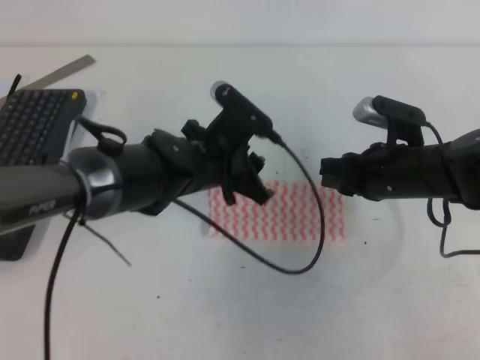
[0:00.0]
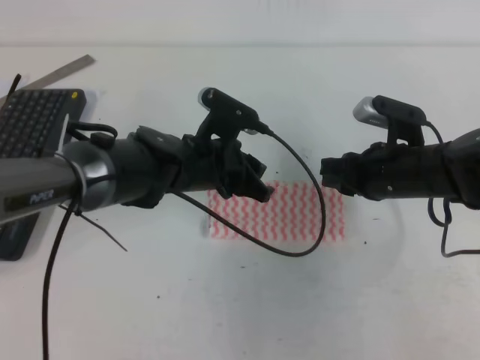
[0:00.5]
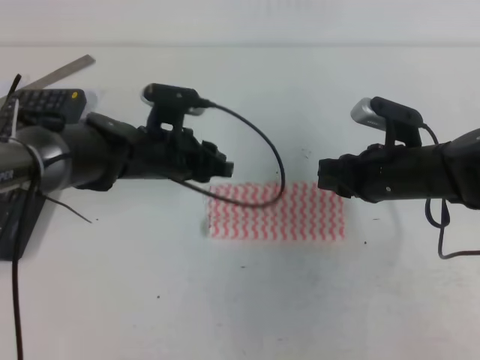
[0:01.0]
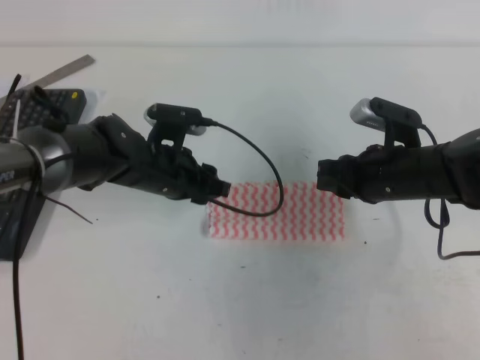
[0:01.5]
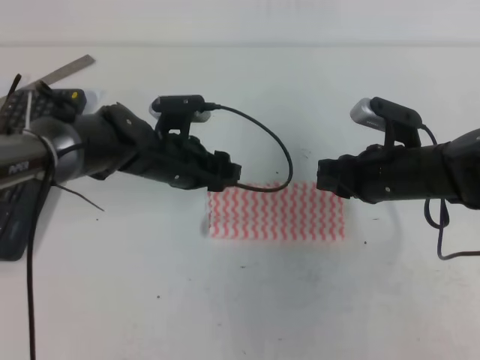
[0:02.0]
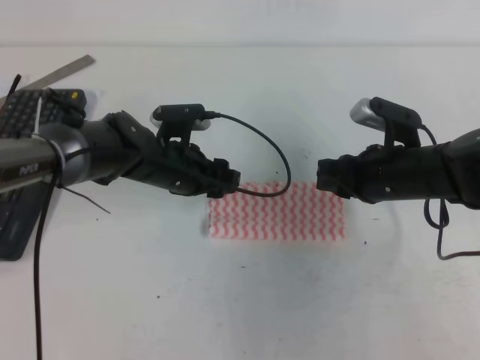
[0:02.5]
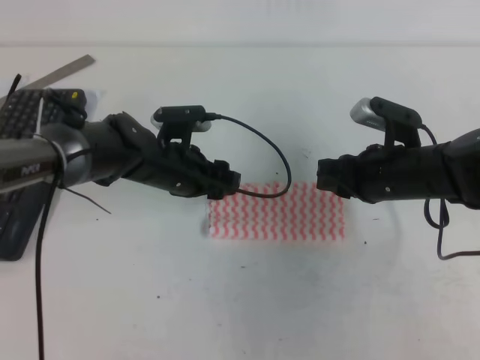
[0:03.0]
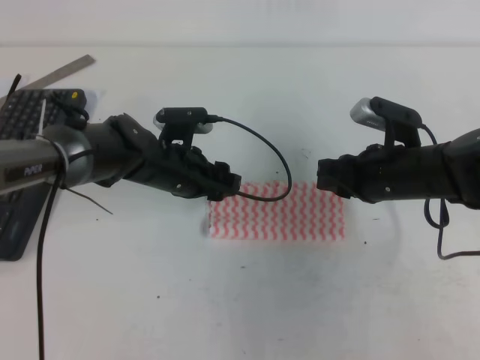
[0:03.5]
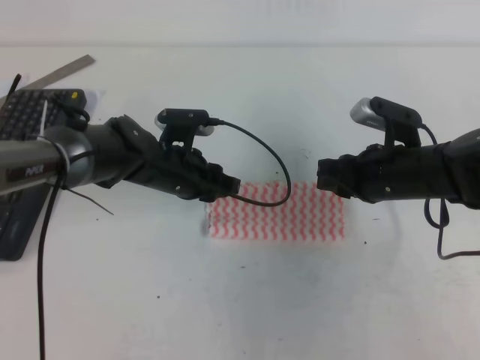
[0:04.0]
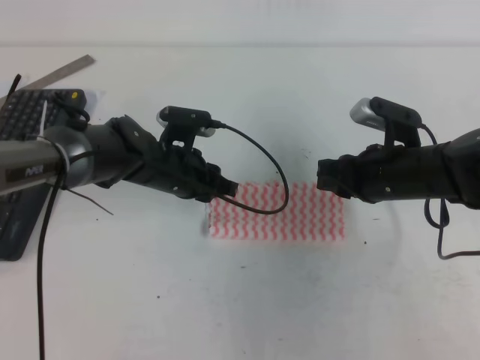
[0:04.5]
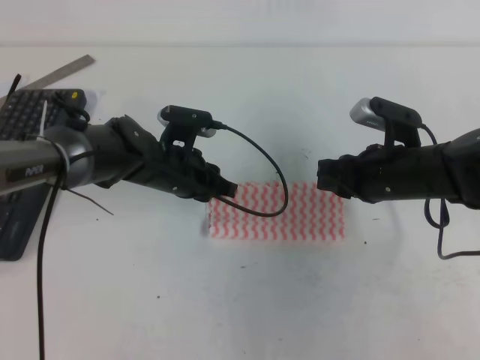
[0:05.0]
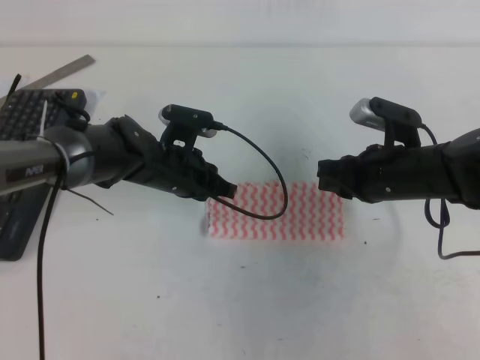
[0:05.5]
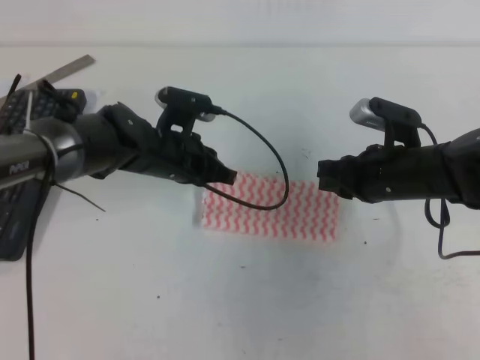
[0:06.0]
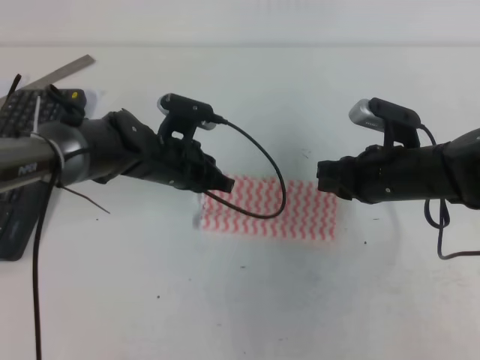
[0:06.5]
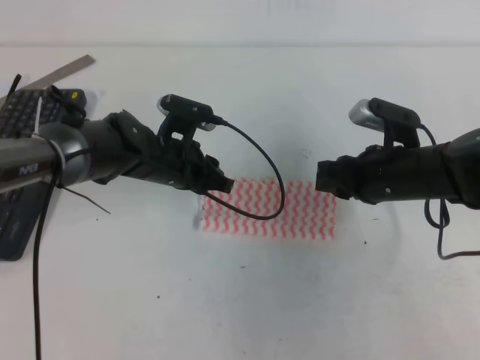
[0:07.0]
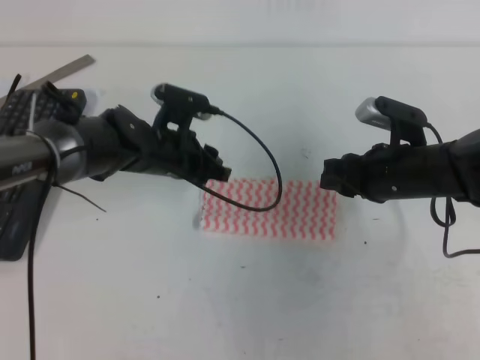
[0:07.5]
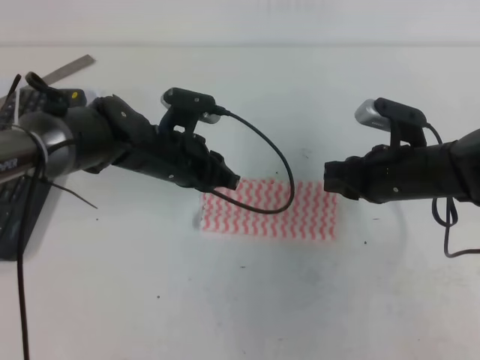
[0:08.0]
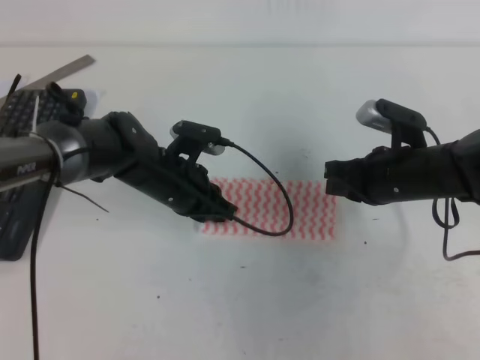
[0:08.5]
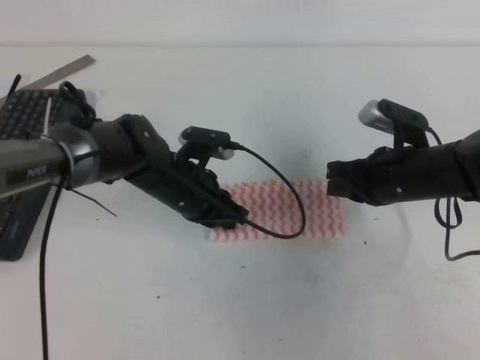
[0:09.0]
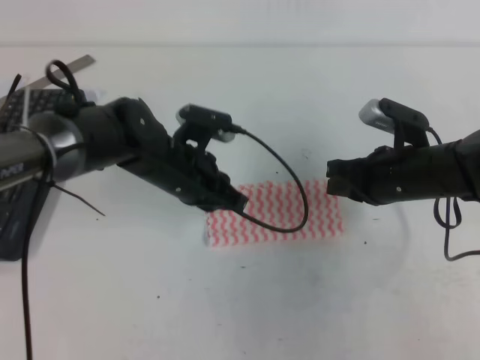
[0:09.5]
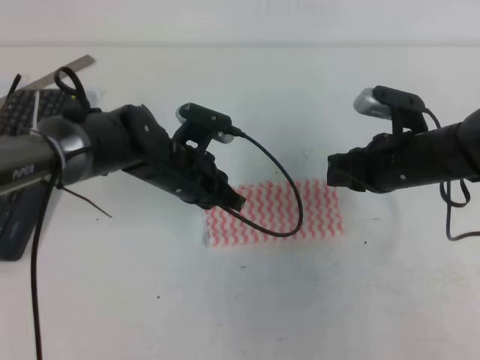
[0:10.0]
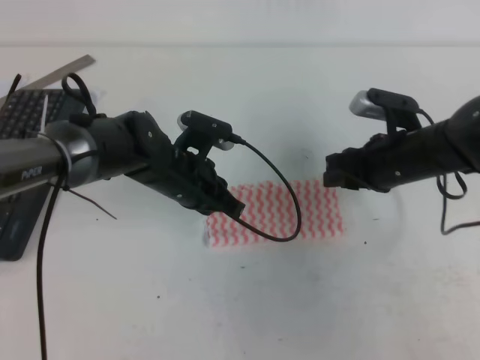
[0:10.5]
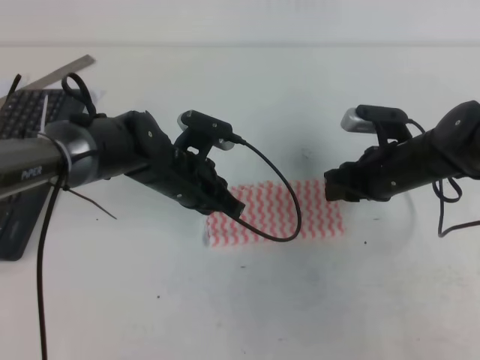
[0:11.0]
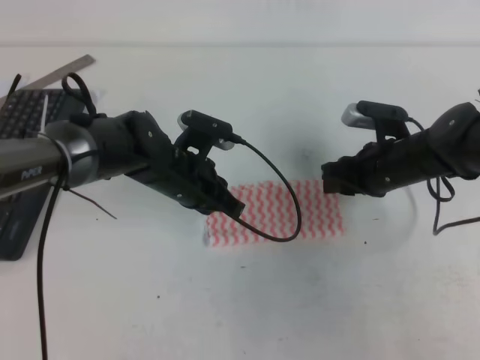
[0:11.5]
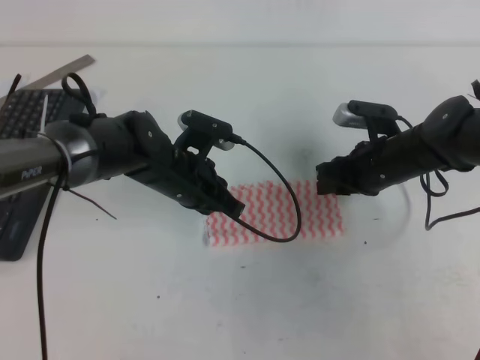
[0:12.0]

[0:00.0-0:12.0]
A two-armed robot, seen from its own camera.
0:00.0 to 0:02.0: The left gripper changes place by some 5 cm, and opens up.
0:02.0 to 0:04.0: The left gripper closes its fingers.
0:04.0 to 0:06.0: The left gripper closes.
0:06.0 to 0:08.0: The left gripper opens and closes again. Meanwhile the right gripper opens and closes again.
0:08.0 to 0:10.0: The grippers stay close to where they were, moving slightly.
0:10.0 to 0:12.0: The right gripper changes place by roughly 5 cm.

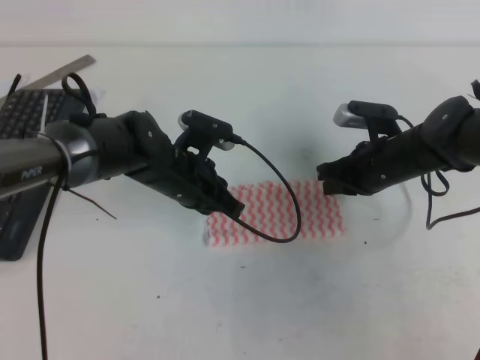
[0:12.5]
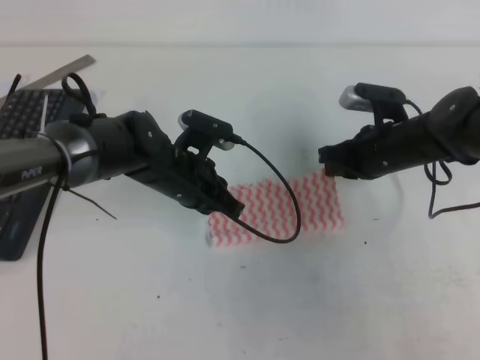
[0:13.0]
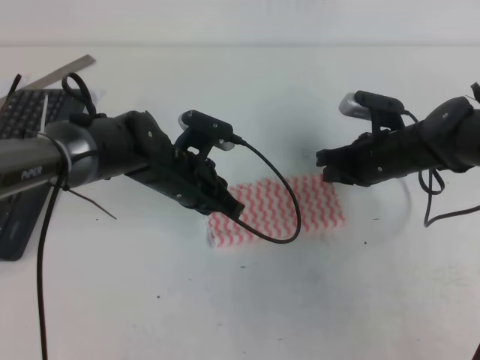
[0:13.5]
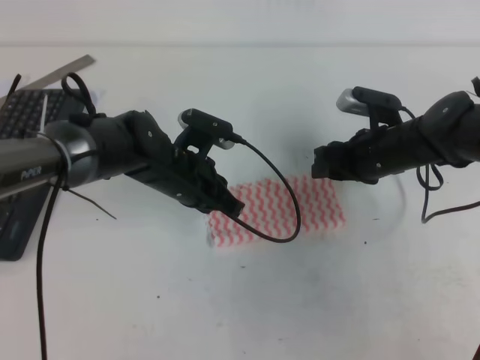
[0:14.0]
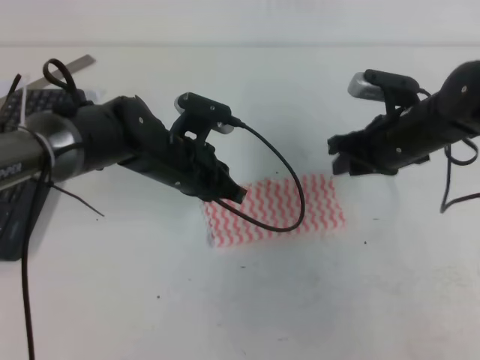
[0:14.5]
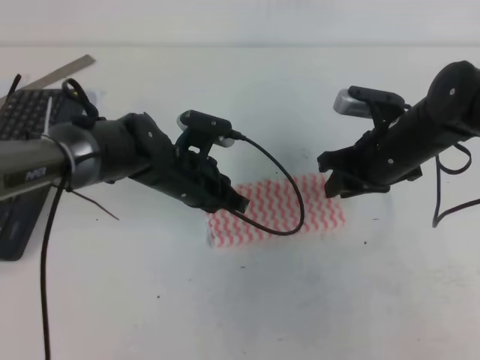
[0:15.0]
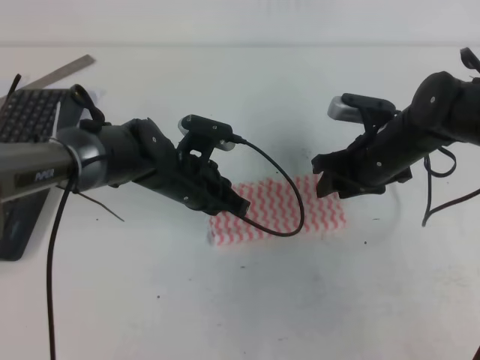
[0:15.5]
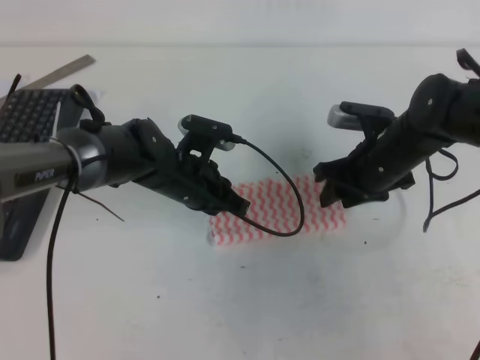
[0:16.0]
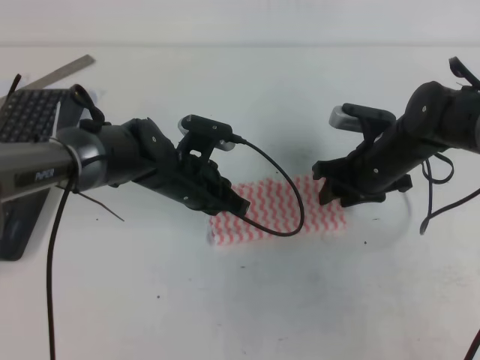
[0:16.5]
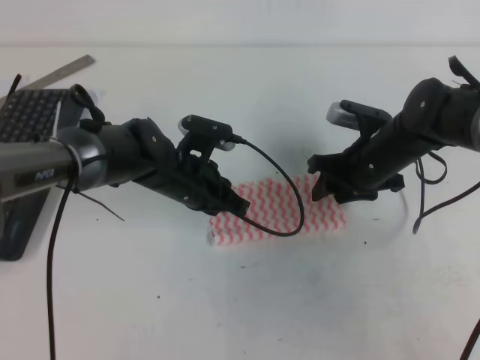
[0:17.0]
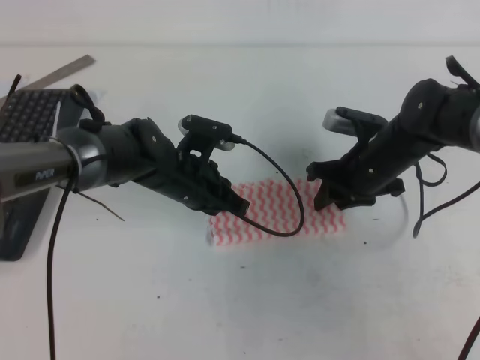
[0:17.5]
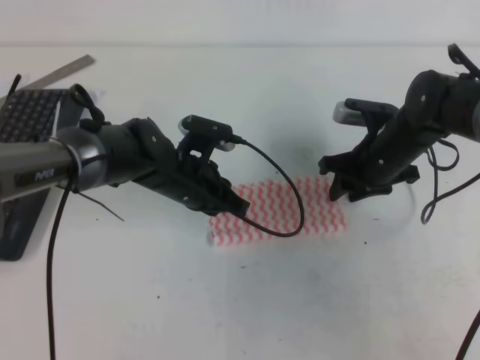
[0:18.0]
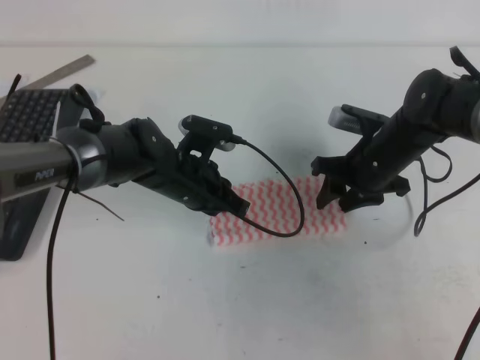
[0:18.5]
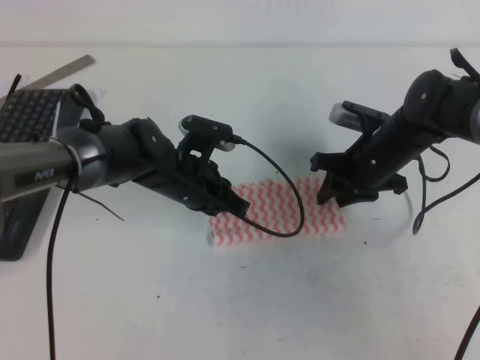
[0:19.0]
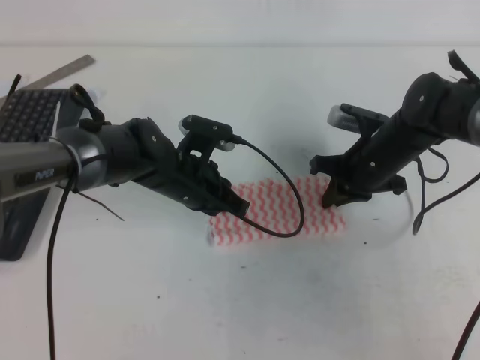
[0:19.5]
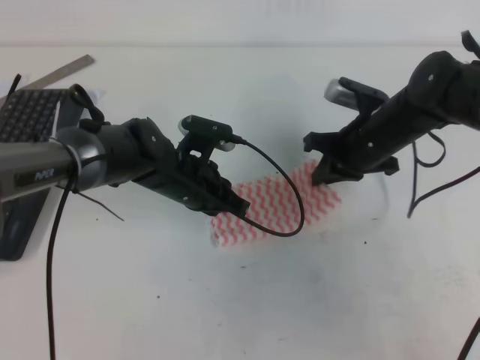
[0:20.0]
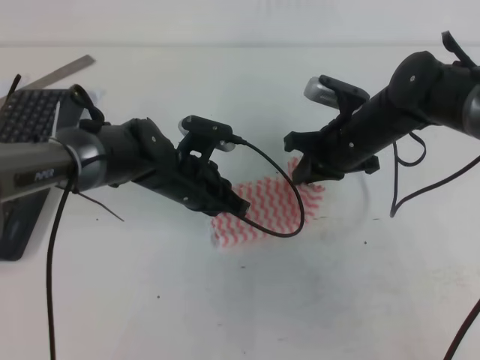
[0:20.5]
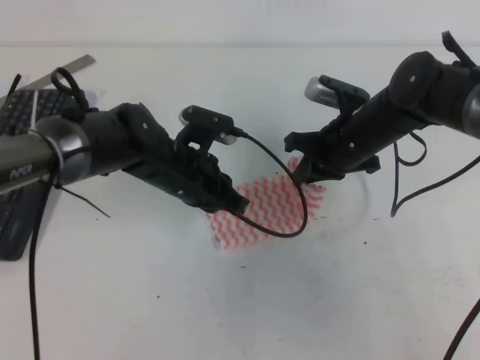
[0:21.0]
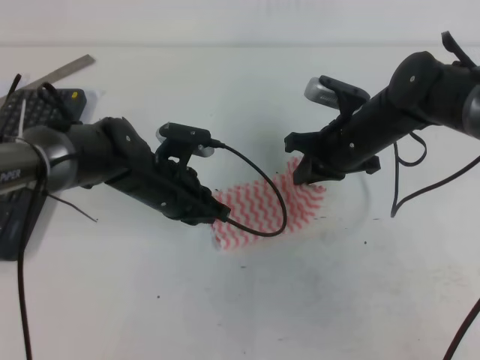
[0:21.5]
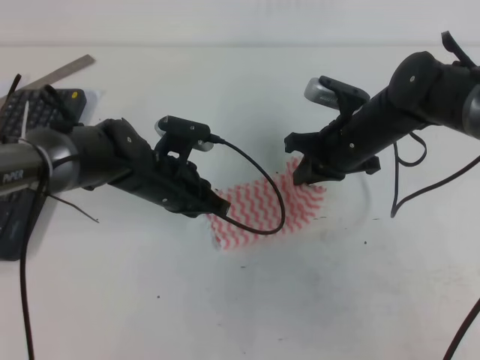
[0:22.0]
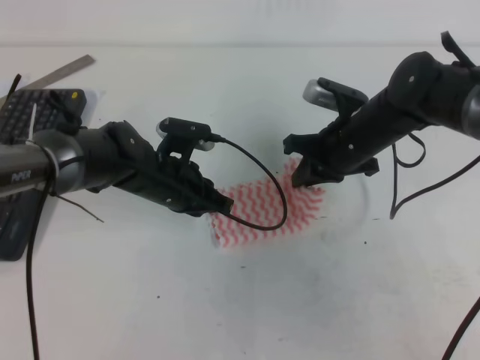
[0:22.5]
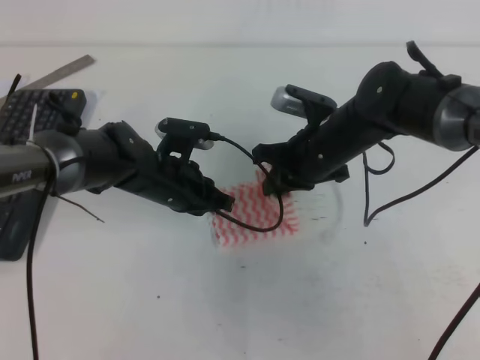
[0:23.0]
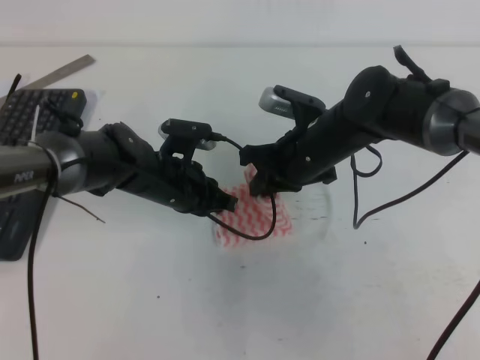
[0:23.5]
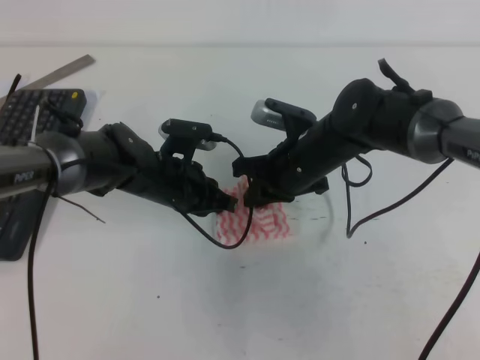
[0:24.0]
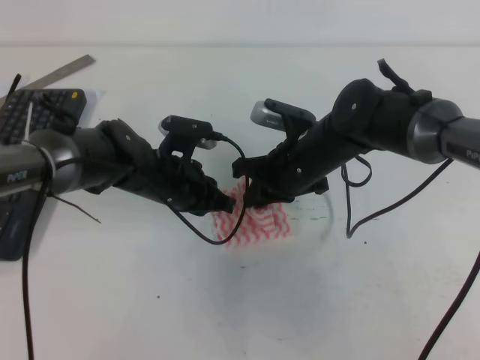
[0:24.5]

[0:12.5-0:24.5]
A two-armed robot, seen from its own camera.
0:12.5 to 0:14.5: The right gripper opens.
0:14.5 to 0:16.5: The right gripper opens up.
0:16.5 to 0:18.5: The grippers make only small movements.
0:18.5 to 0:20.5: The right gripper closes up.
0:20.5 to 0:22.5: There are only small adjustments of the grippers.
0:22.5 to 0:24.5: The right gripper moves to the left, about 5 cm.

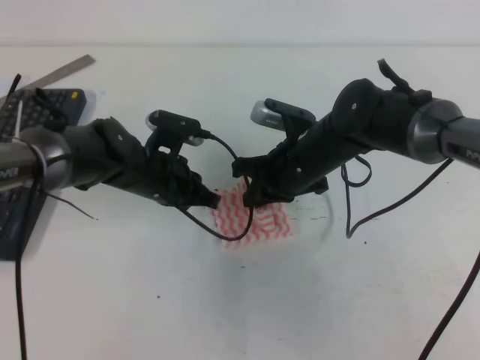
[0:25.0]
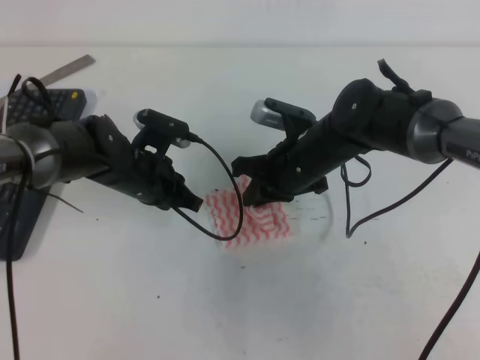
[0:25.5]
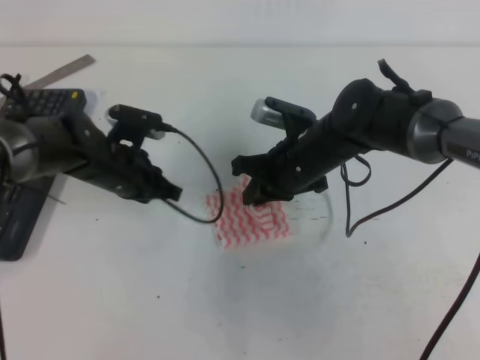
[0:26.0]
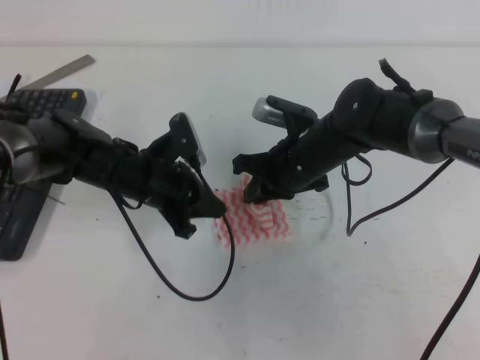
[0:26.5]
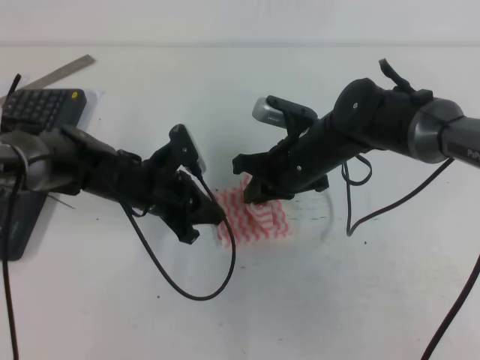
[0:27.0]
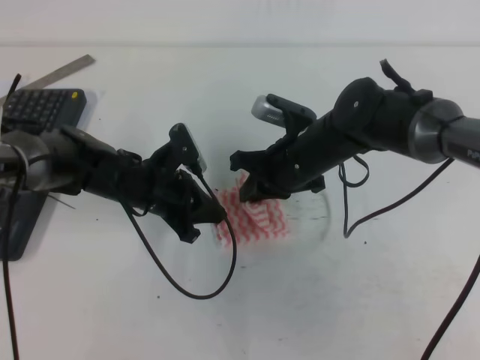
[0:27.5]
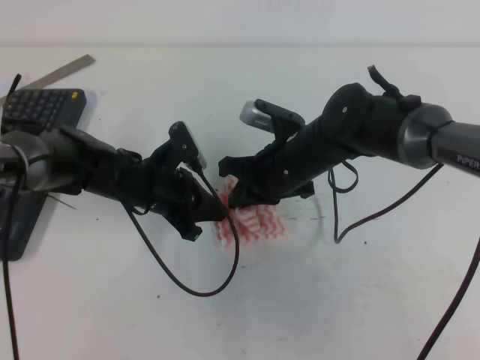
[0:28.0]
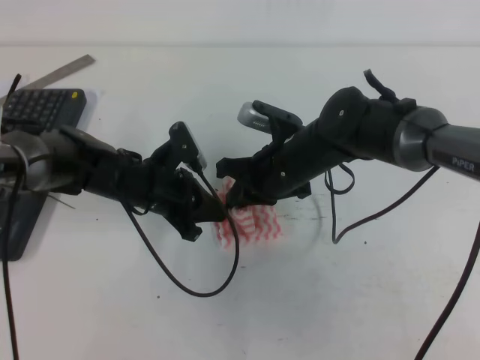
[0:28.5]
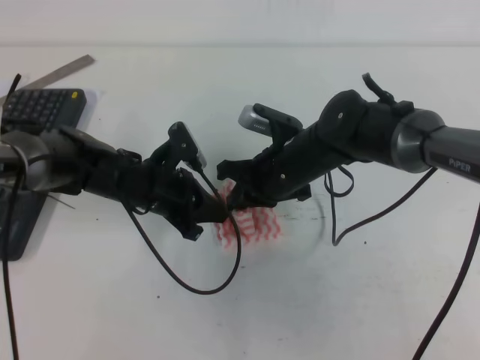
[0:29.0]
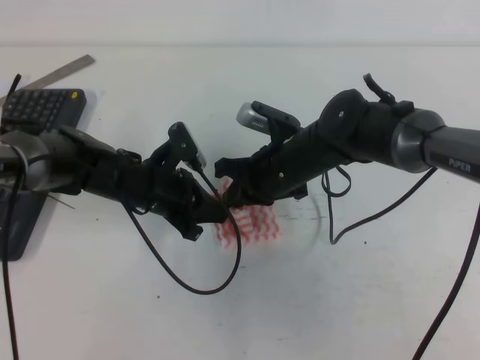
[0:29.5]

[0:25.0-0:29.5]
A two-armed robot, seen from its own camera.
0:27.0 to 0:29.5: The grippers move only a little.
